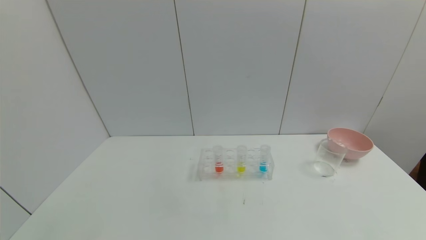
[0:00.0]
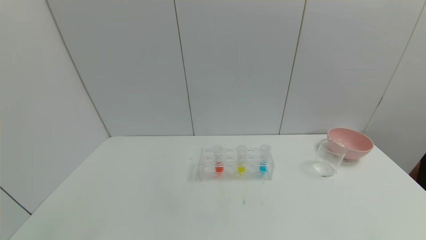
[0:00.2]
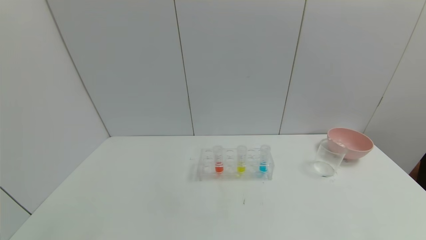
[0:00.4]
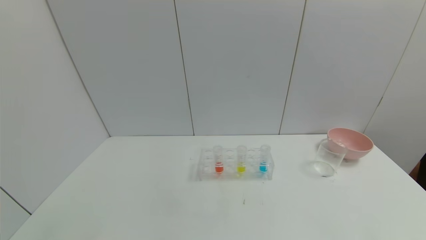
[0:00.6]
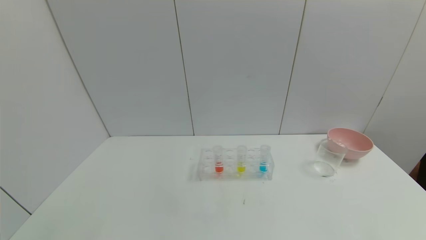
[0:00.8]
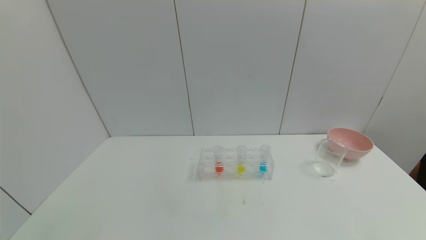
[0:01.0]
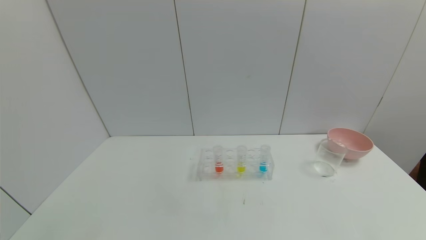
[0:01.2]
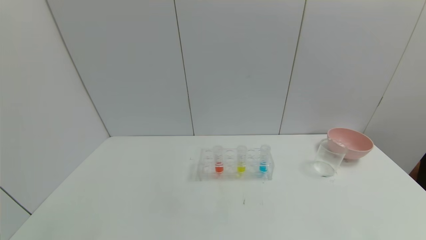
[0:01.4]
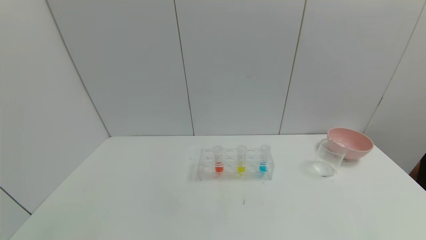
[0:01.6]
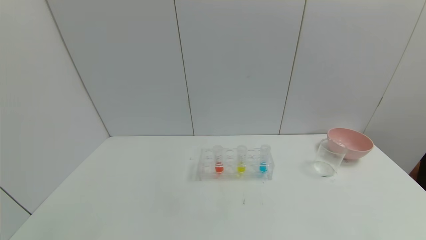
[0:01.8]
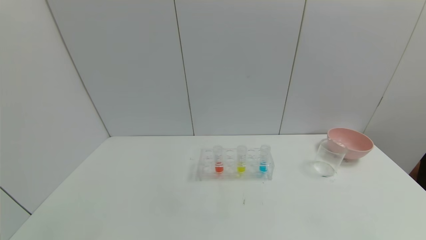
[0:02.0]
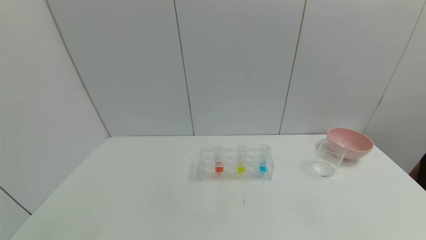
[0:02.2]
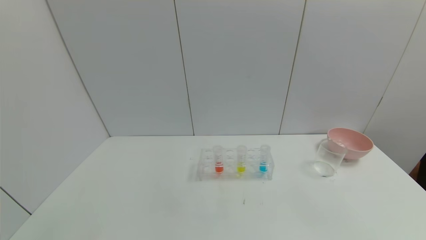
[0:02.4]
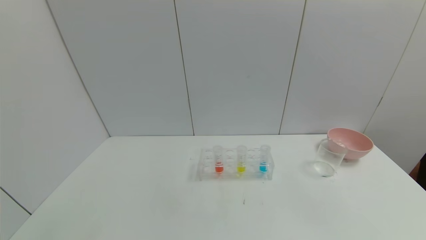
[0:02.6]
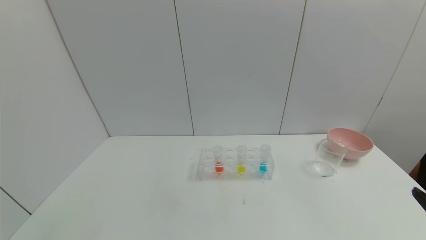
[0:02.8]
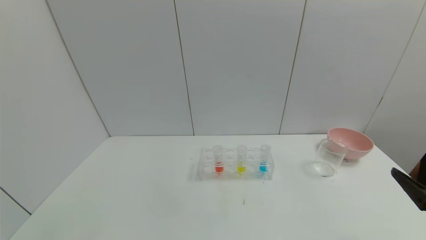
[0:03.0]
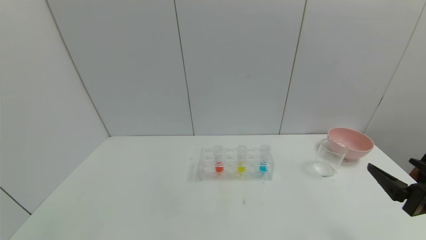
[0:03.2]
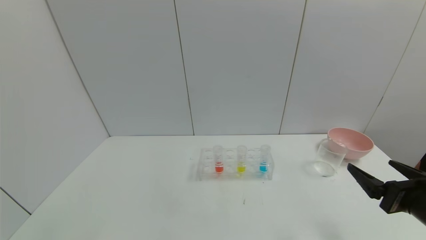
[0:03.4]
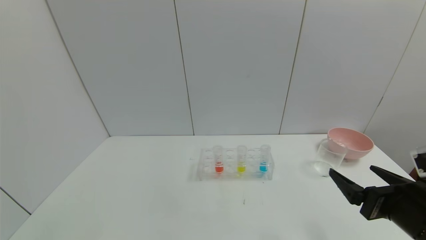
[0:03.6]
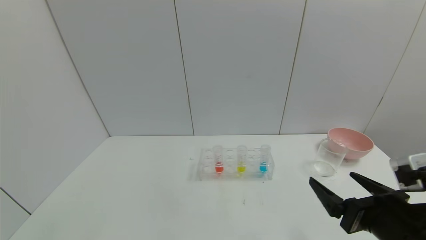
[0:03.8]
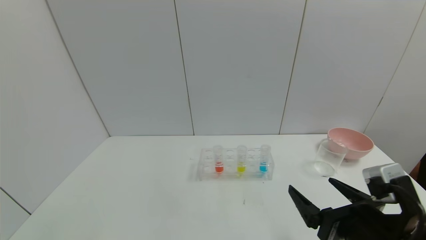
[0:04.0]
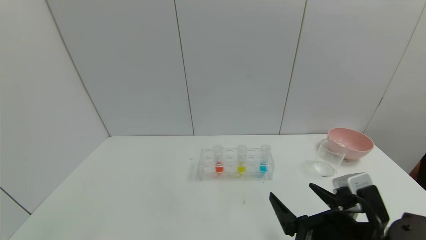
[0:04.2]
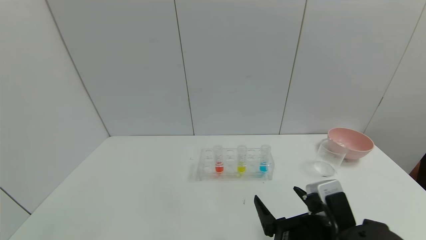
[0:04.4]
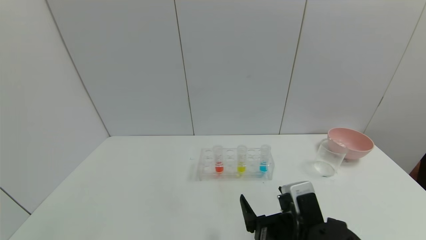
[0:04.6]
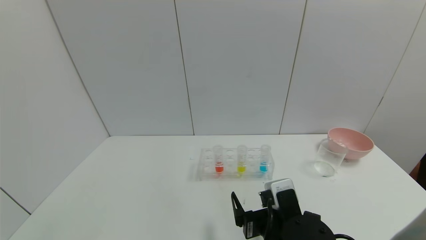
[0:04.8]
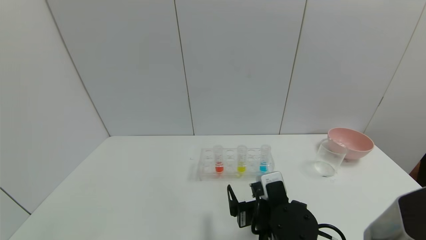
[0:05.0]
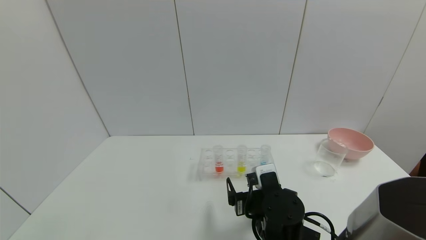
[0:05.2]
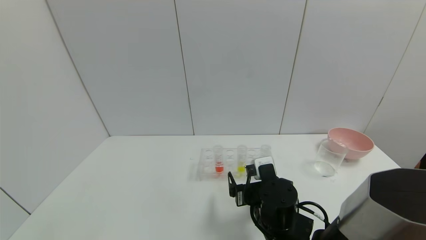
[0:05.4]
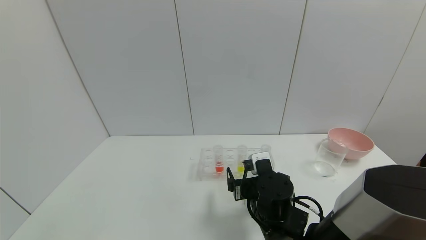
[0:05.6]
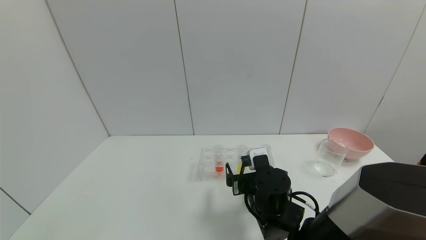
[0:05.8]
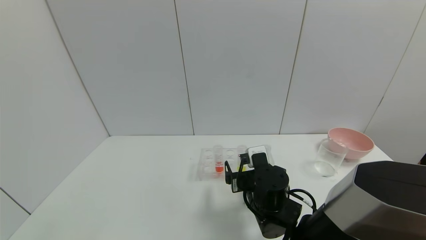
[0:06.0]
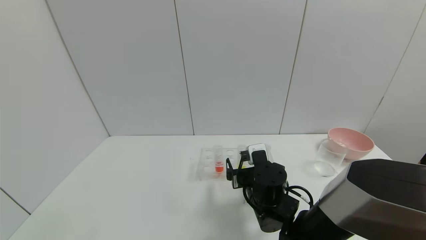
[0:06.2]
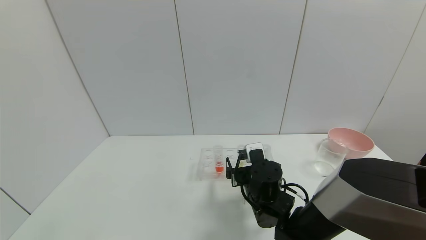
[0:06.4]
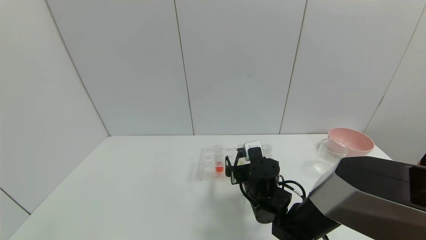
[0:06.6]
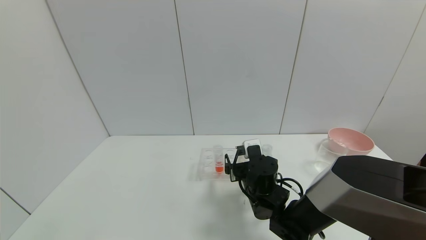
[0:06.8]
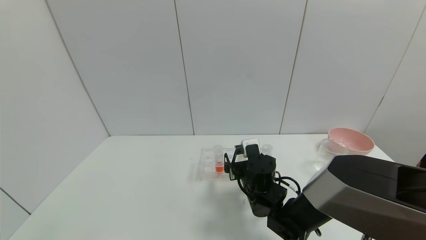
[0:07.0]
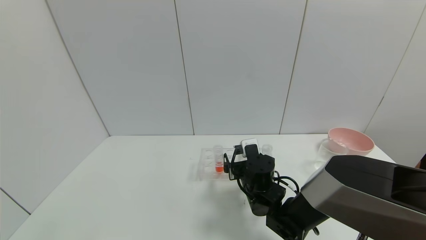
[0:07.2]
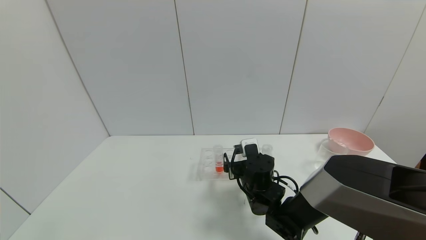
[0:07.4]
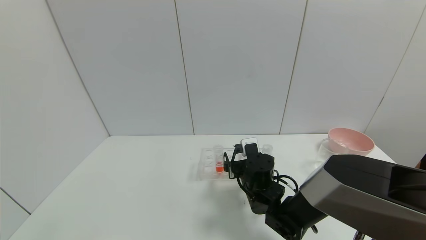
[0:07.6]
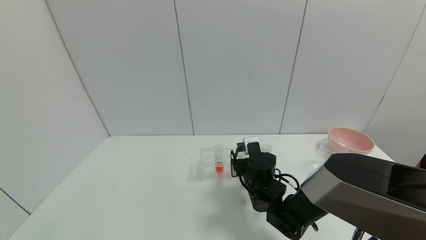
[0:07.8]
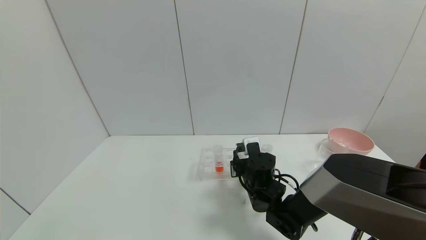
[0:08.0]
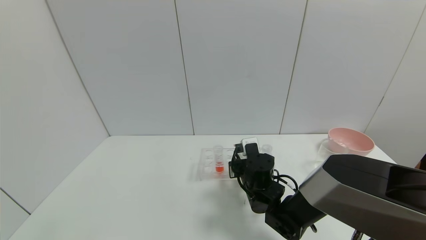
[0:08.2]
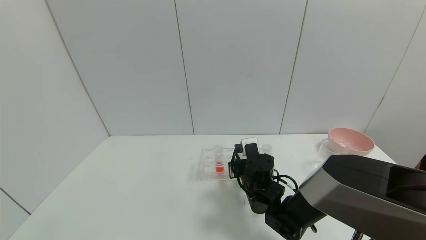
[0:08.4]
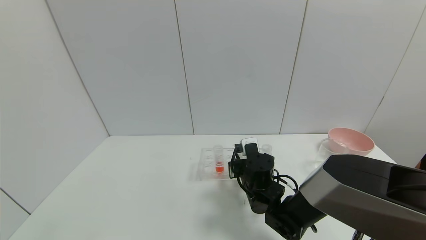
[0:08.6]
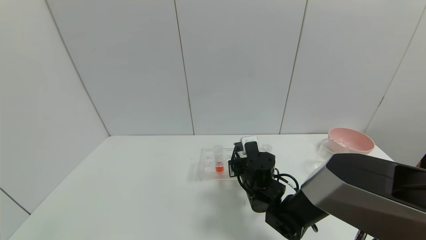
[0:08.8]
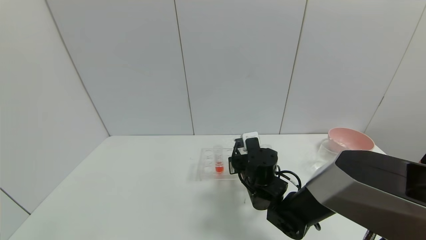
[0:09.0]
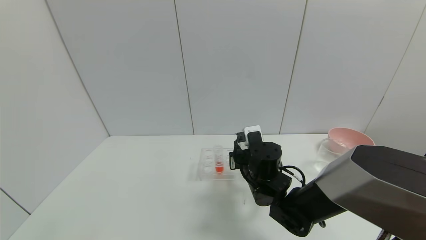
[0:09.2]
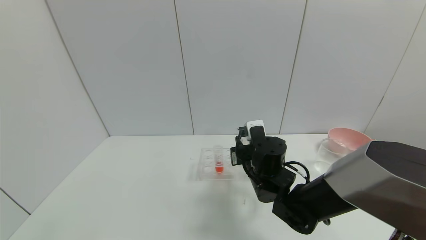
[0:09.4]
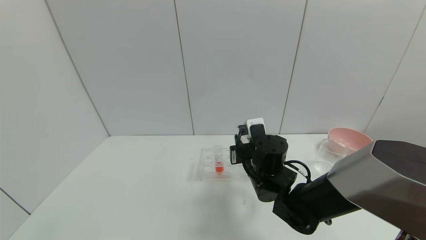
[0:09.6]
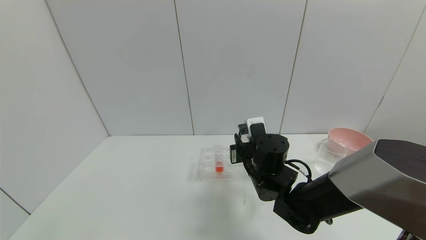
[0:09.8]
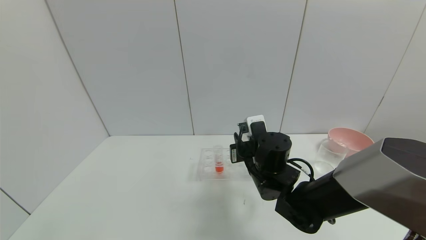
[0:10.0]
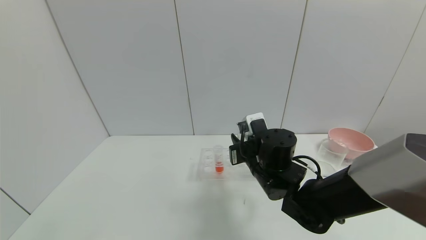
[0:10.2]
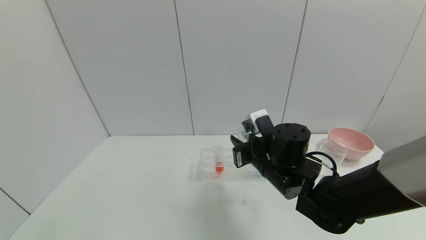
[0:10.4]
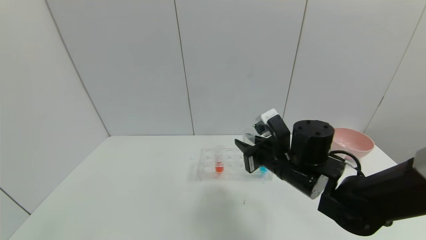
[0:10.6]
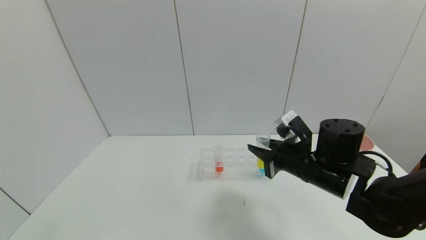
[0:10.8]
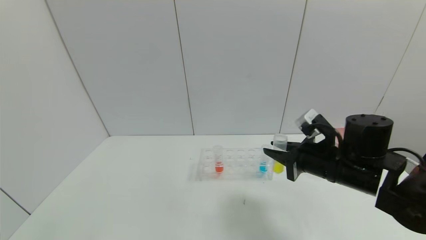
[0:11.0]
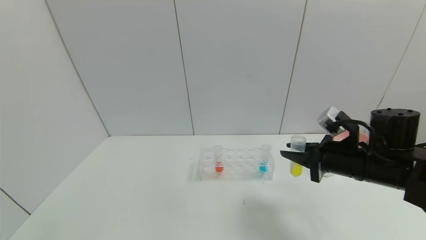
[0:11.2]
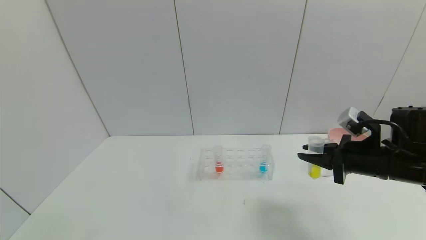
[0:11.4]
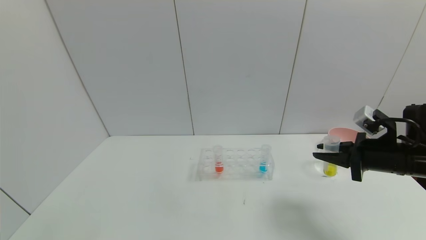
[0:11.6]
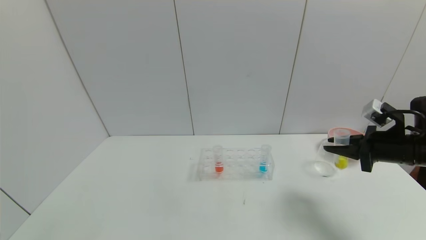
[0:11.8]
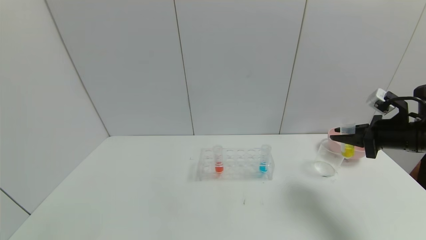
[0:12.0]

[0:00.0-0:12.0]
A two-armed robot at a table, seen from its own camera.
Task of the whole recording: pick up the test tube with yellow pigment and the test tube with blue pigment by grippers and pour them into the beaker.
Step, 0:00.0 to 0:11.4: Pick up the test tube containing the yellow reagent with right gripper.
0:00.0 to 0:01.6: Neither gripper changes place.
0:01.6 to 0:03.0: The right gripper is displaced forward and upward by approximately 15 cm.
0:03.0 to 0:04.4: The right gripper travels to the left by approximately 20 cm.
0:04.4 to 0:06.0: The right gripper moves forward and to the left, about 15 cm.
0:06.0 to 0:07.6: The right gripper heads forward, covering some 5 cm.
0:07.6 to 0:09.0: The right gripper closes.
0:09.0 to 0:10.4: The right gripper moves upward, some 5 cm.
0:10.4 to 0:12.0: The right gripper goes approximately 30 cm to the right.

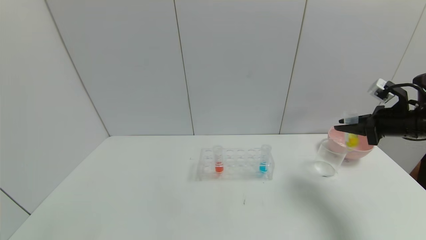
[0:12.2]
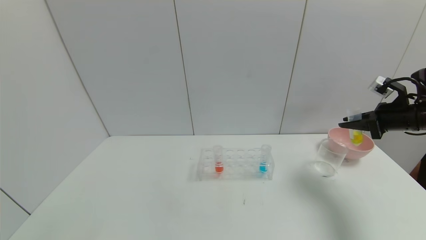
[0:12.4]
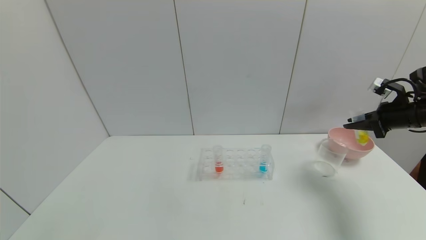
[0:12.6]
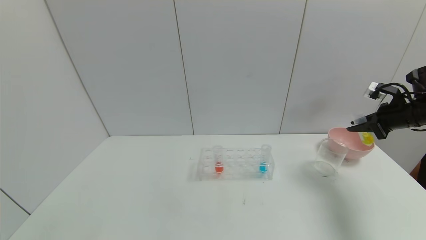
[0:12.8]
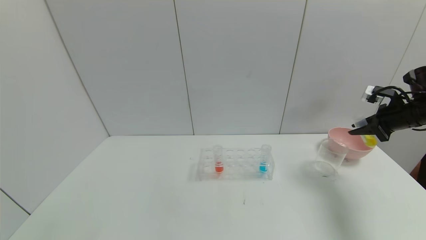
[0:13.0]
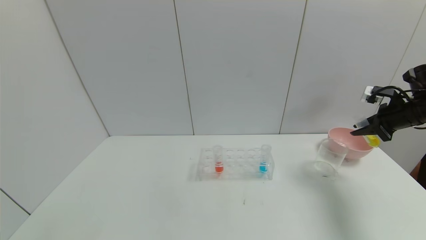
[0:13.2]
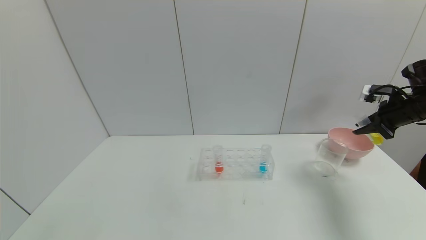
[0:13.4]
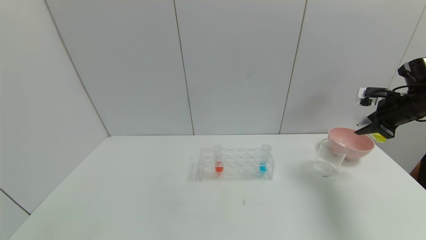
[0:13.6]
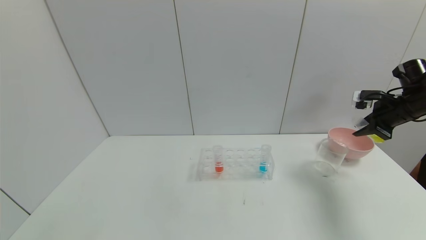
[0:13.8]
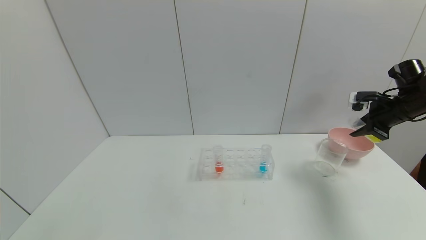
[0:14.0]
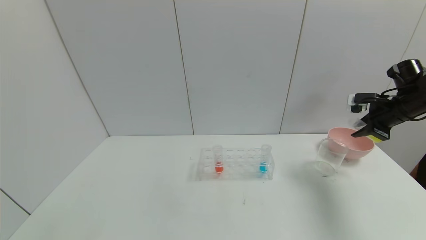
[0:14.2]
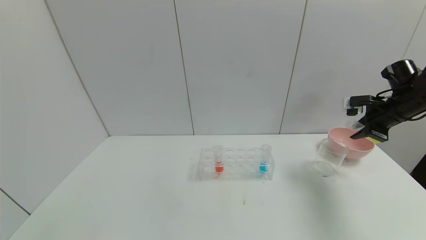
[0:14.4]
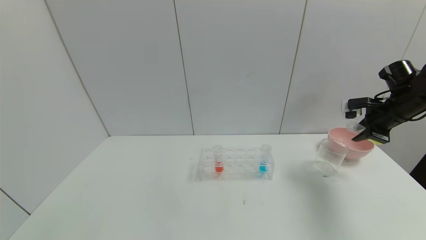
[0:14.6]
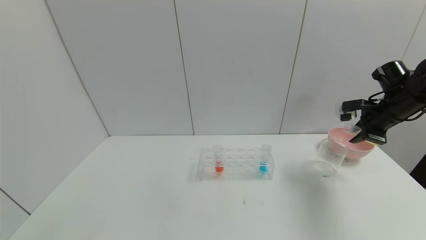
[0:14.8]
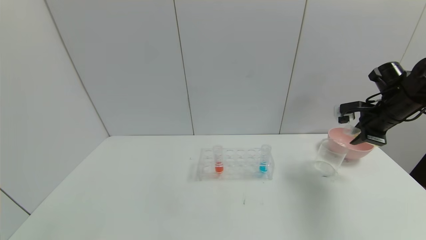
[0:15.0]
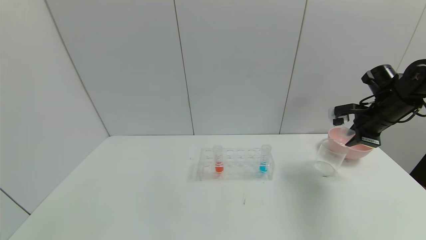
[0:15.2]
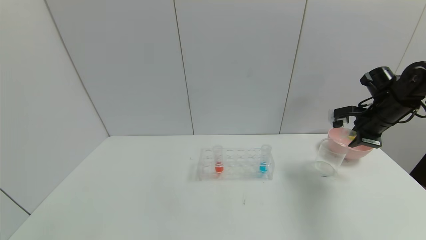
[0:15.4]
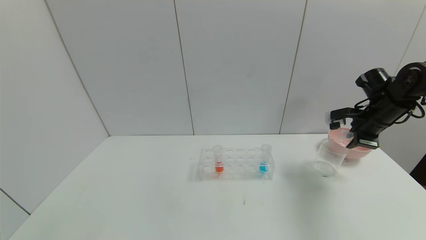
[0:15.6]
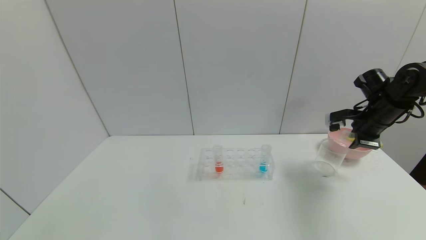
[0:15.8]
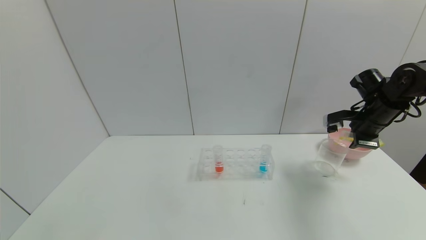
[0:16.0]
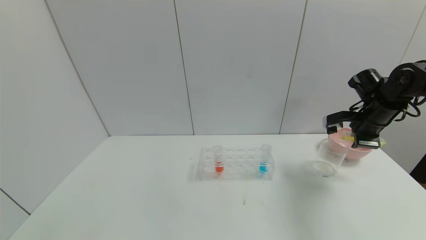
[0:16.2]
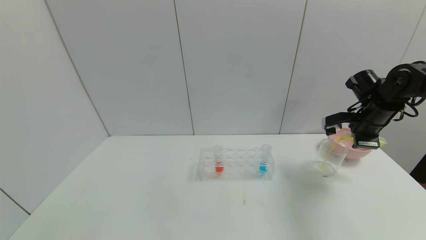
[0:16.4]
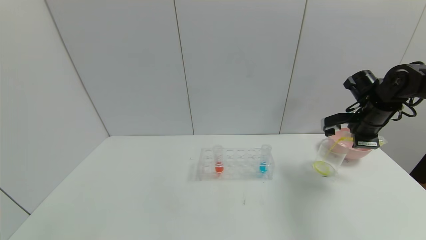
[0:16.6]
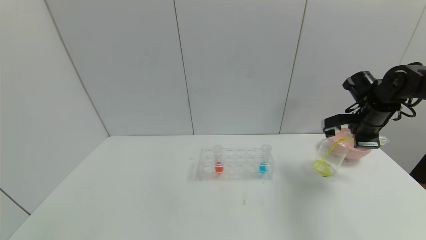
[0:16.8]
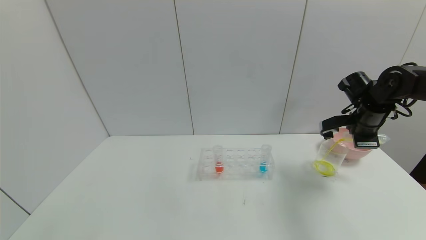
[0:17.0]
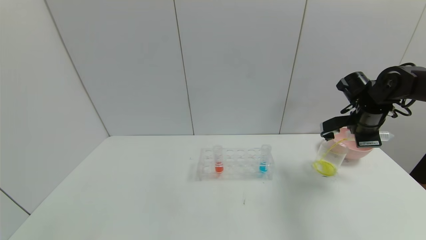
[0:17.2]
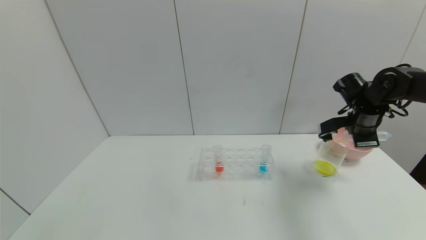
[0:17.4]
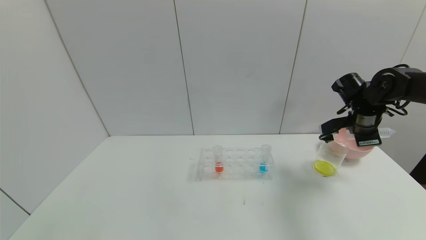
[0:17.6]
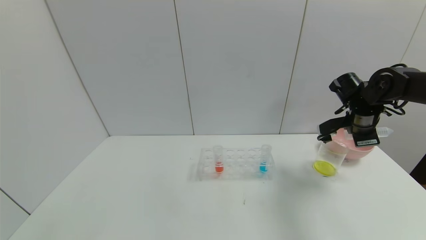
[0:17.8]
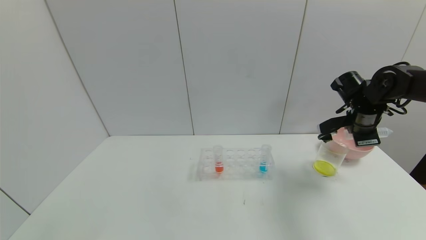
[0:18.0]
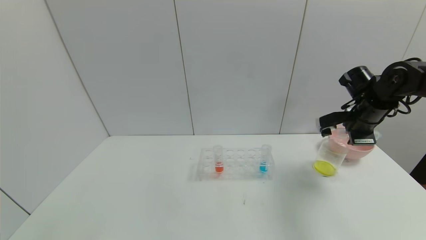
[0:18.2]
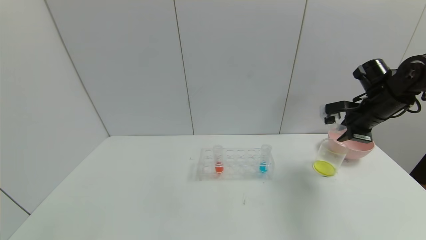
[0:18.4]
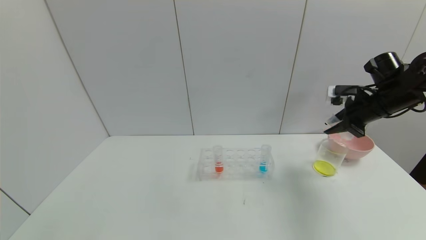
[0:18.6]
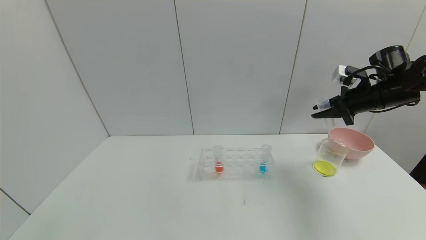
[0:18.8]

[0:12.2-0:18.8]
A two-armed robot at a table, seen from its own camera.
Task of the whole recording: pick up the test tube with yellow pigment and the test tube with blue pigment by grippers and pour them into the beaker.
0:12.2 to 0:13.8: The right gripper goes roughly 5 cm forward.
0:13.8 to 0:15.4: The right gripper moves to the left, some 5 cm.
0:17.2 to 0:18.8: The right gripper ends up roughly 5 cm from where it was.
